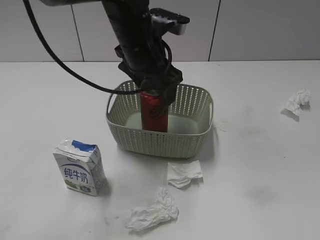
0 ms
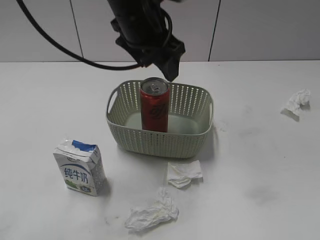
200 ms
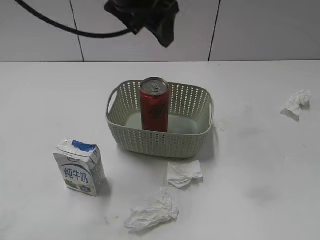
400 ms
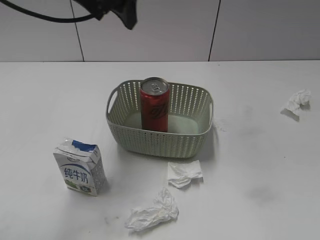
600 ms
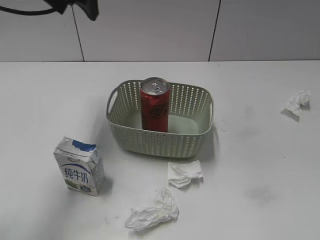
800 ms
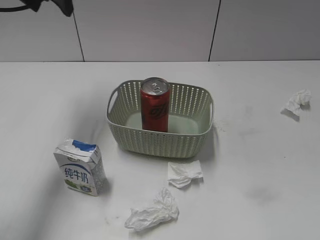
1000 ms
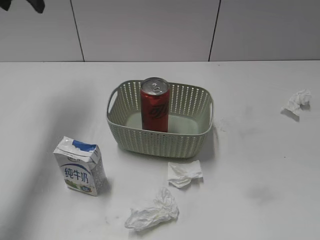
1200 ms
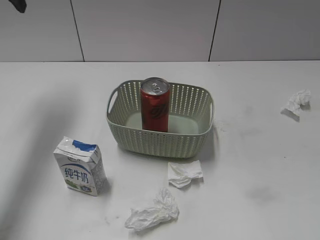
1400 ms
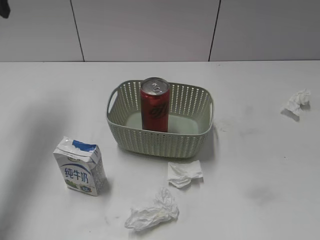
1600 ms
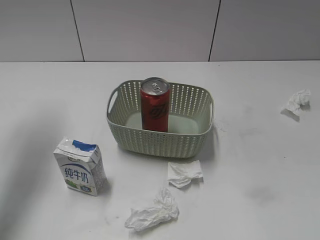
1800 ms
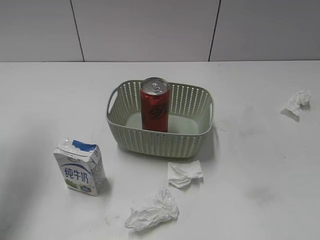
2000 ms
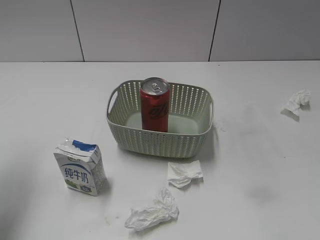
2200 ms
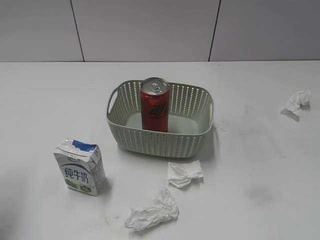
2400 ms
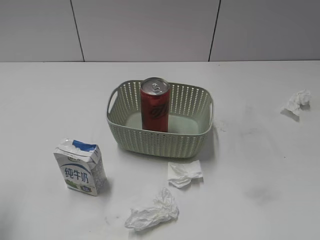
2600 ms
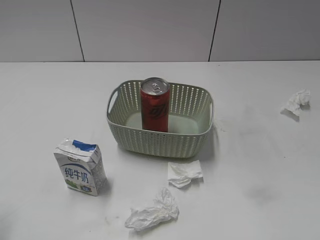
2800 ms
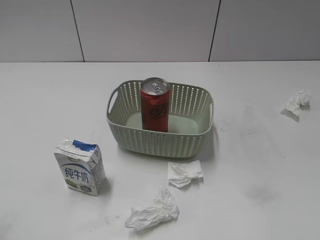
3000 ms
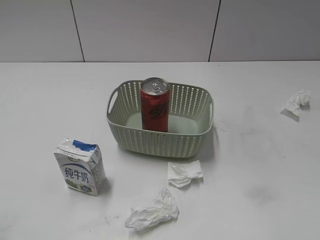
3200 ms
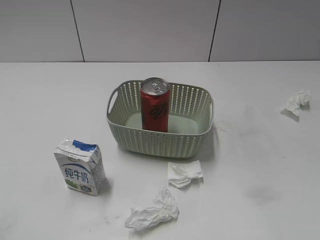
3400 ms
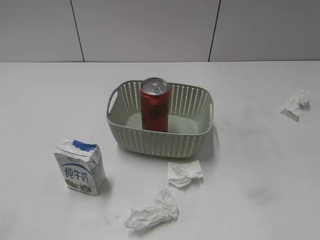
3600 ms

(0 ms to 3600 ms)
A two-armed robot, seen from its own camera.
0 ms - 1800 ms: The left gripper goes some 30 cm to the left and upward.
1800 ms - 3600 ms: The left gripper shifts some 35 cm backward.
